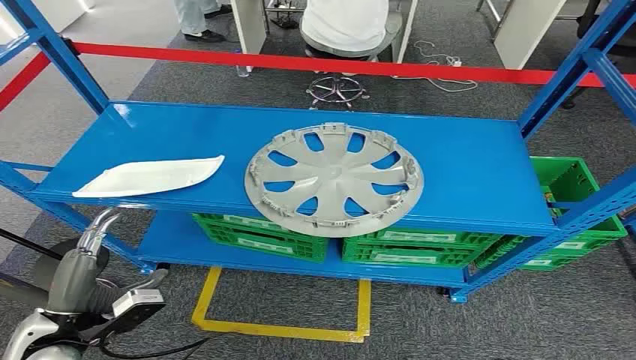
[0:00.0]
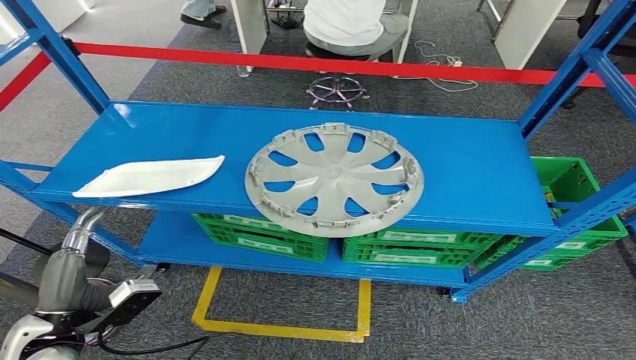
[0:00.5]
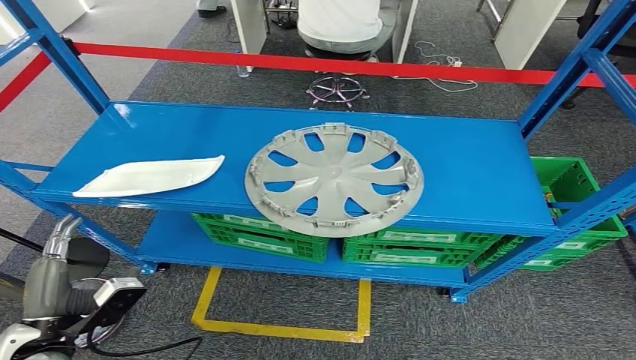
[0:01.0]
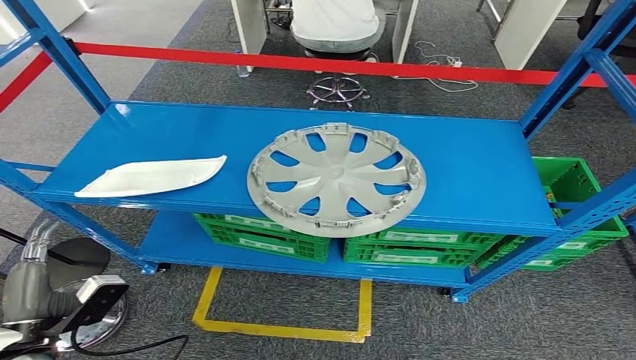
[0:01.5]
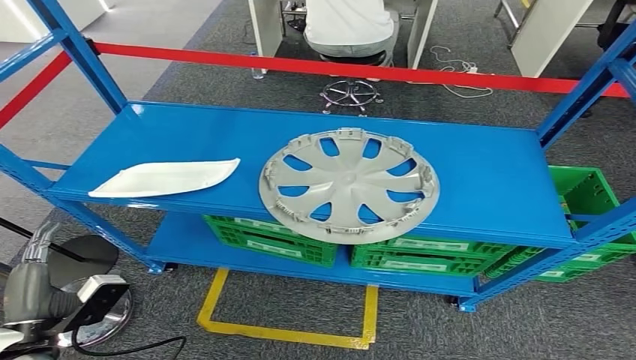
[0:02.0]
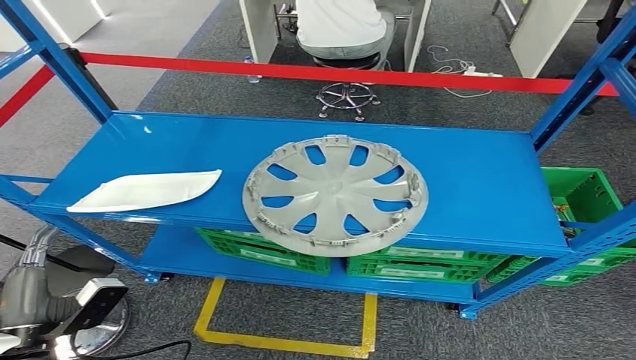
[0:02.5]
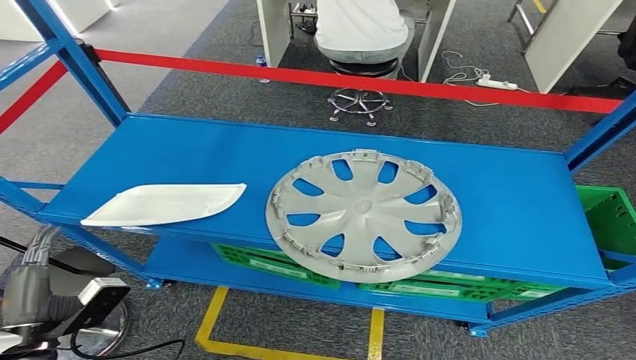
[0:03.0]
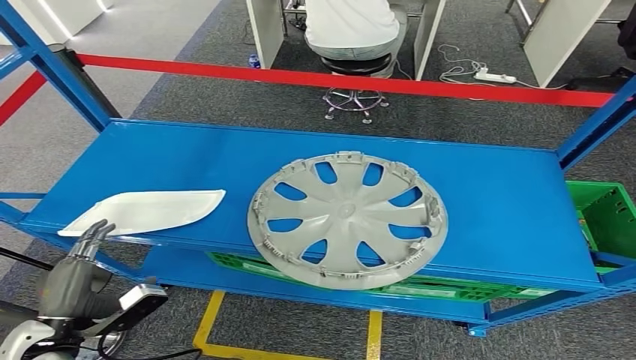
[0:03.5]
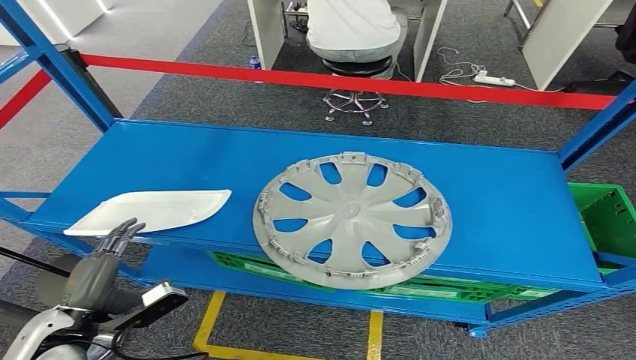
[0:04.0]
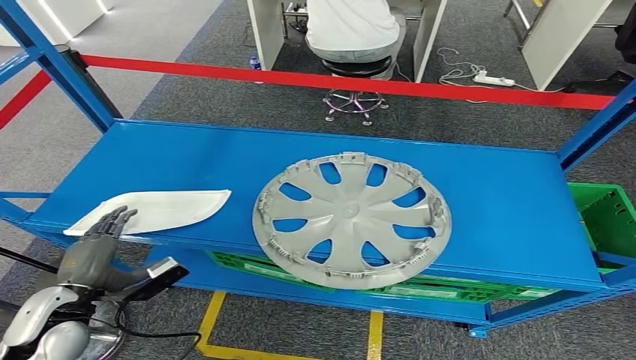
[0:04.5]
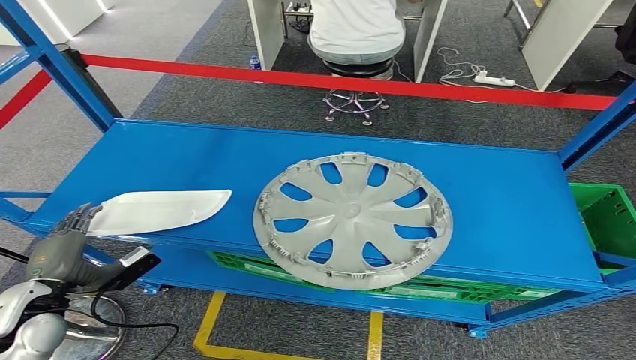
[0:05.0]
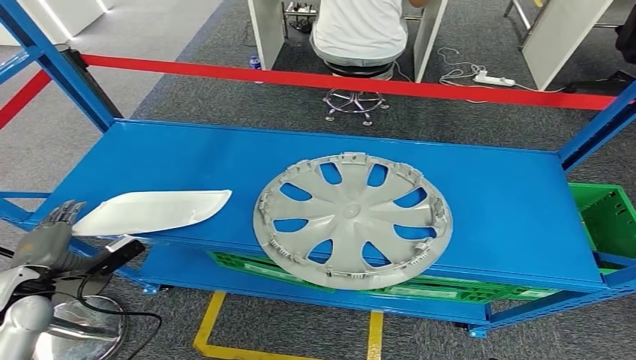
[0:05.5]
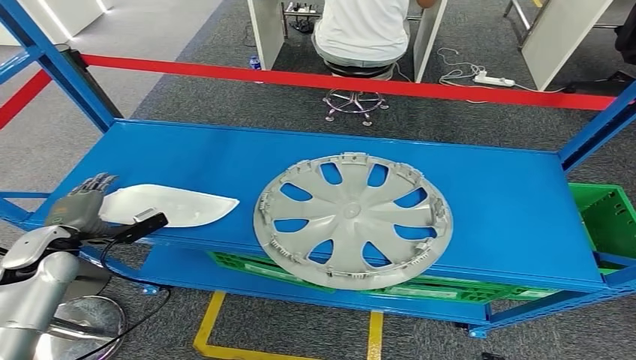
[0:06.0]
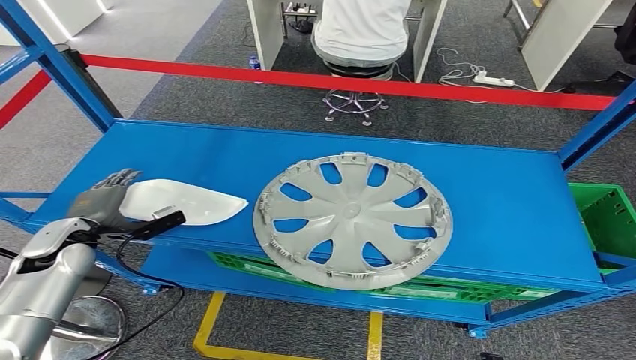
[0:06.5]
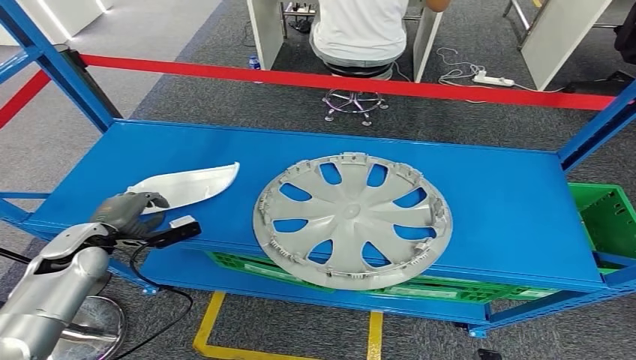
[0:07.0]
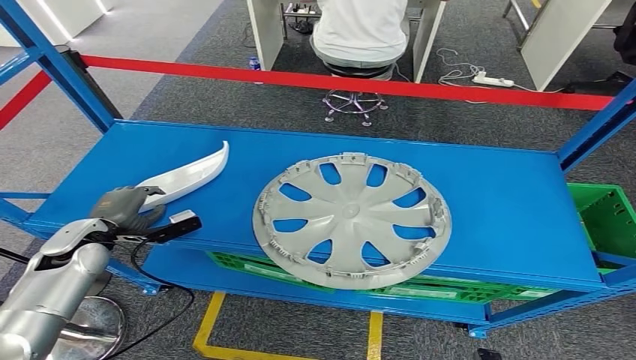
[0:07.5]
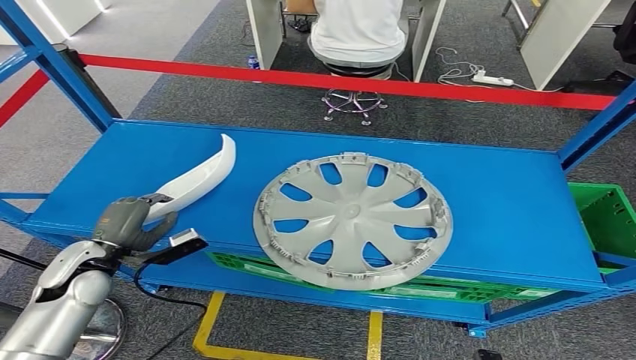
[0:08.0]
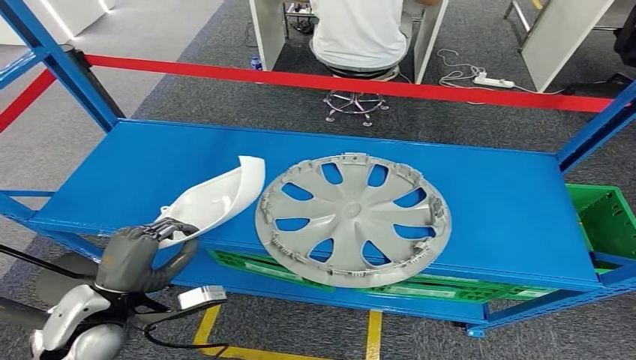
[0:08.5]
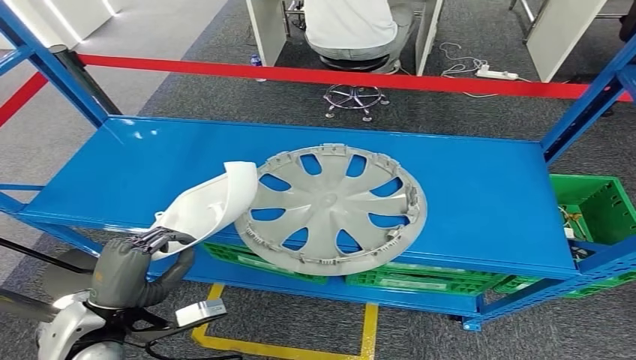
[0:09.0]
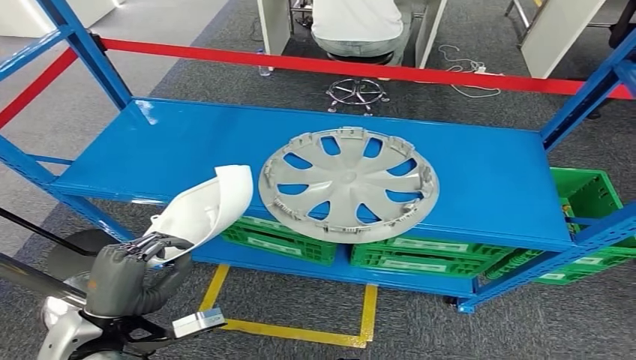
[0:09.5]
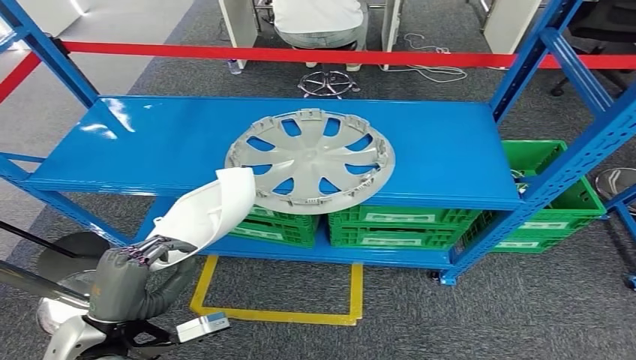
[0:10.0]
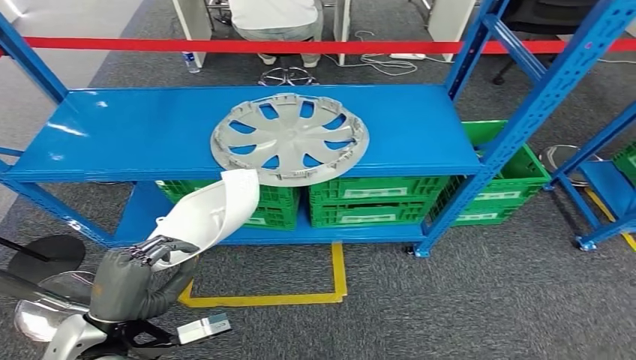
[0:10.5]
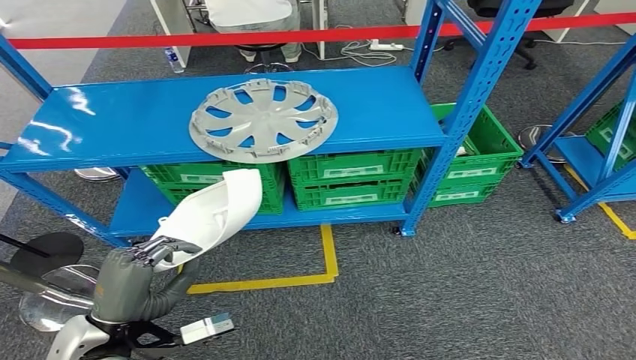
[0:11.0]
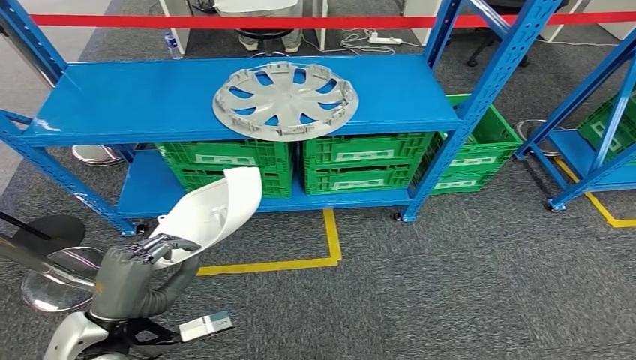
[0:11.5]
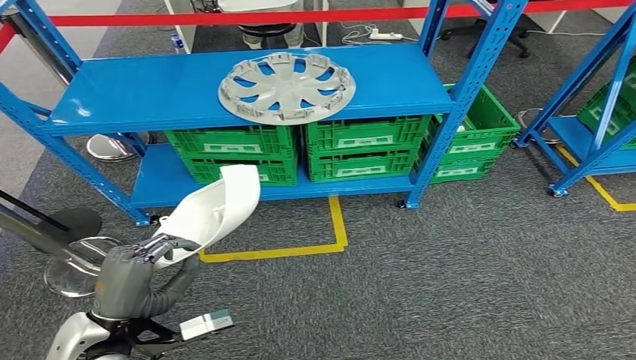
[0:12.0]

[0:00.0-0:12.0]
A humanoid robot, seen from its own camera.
Step, 0:00.0 to 0:11.0: Take small components from the rack.
0:04.0 to 0:06.0: The left hand moves forward and to the left, roughly 15 cm.
0:06.0 to 0:08.0: The left hand shifts some 5 cm to the right.

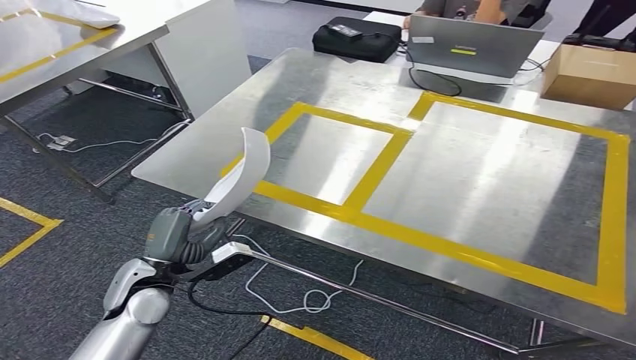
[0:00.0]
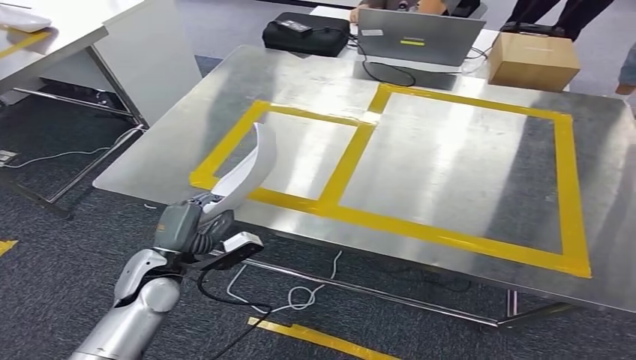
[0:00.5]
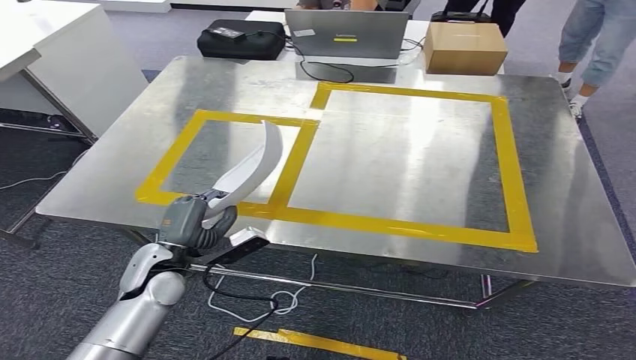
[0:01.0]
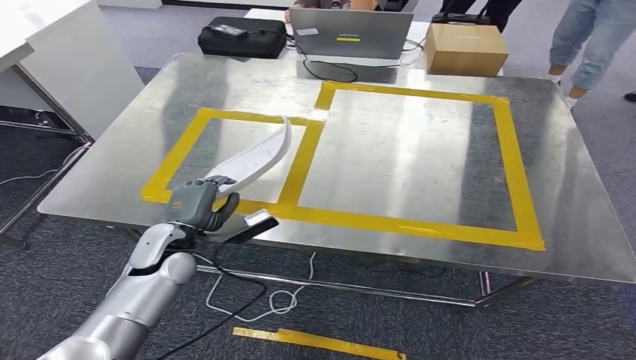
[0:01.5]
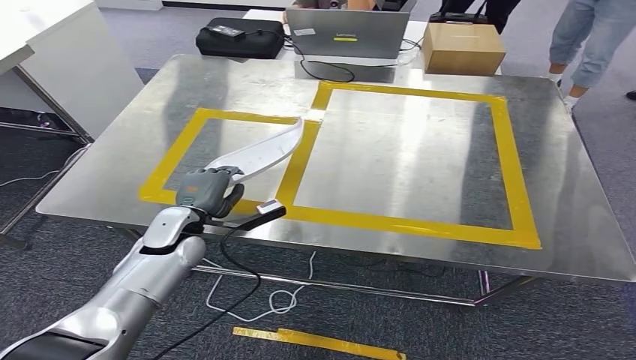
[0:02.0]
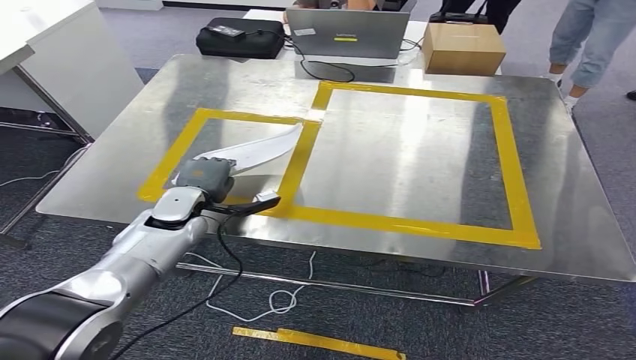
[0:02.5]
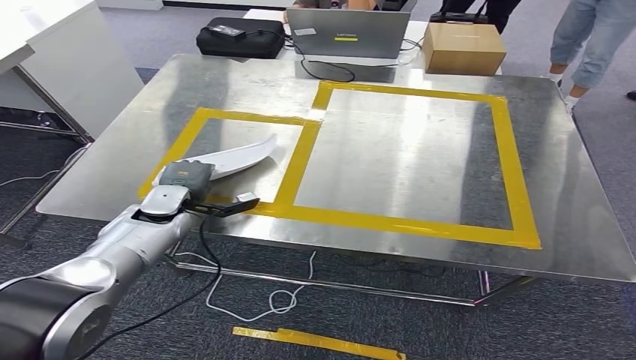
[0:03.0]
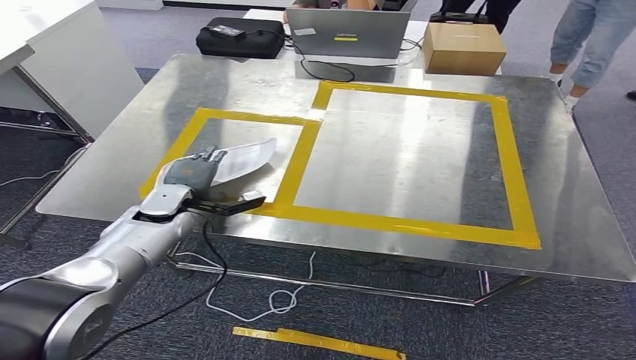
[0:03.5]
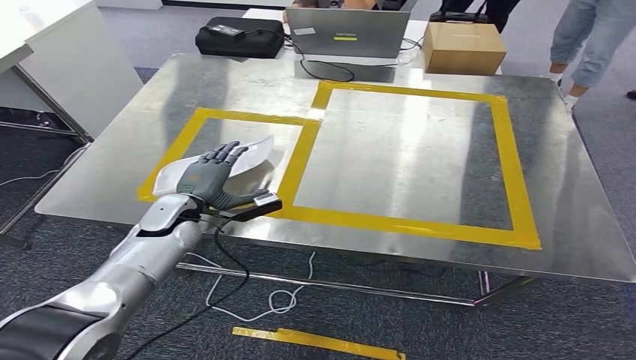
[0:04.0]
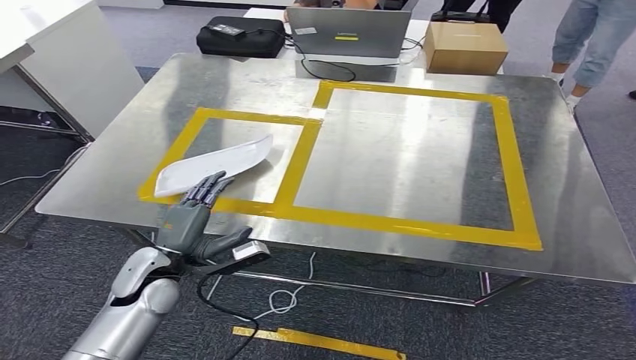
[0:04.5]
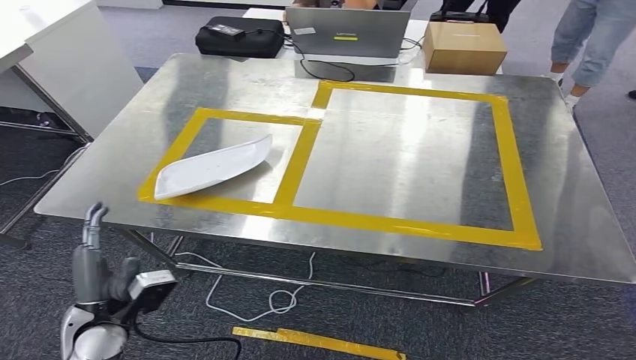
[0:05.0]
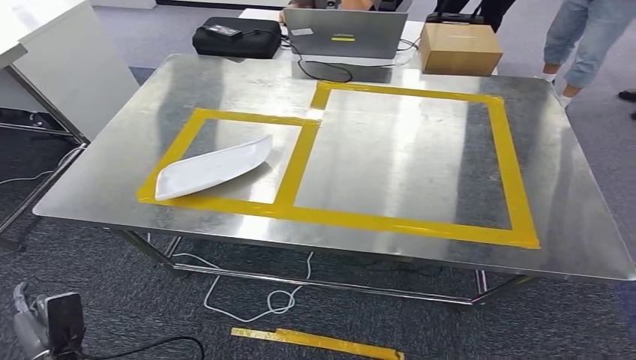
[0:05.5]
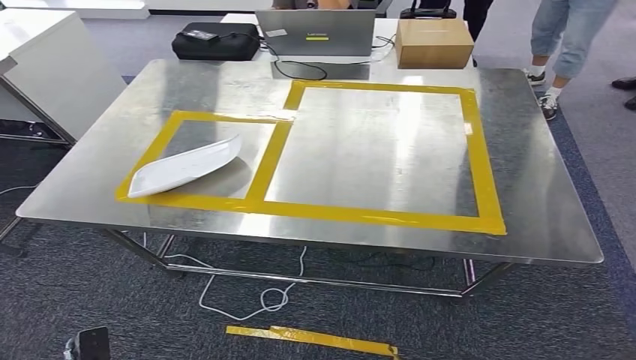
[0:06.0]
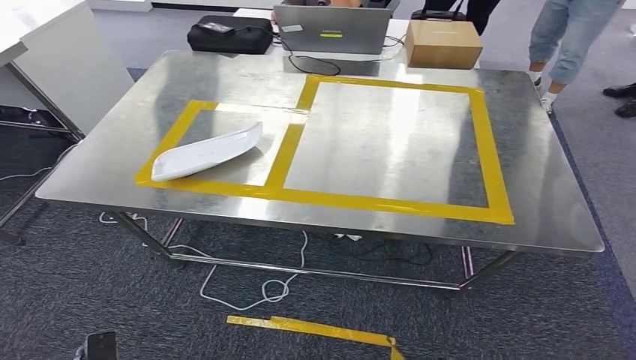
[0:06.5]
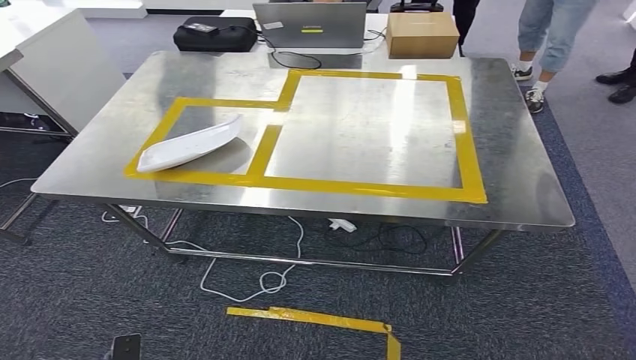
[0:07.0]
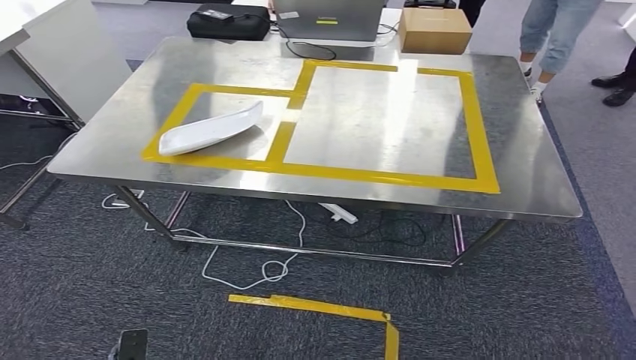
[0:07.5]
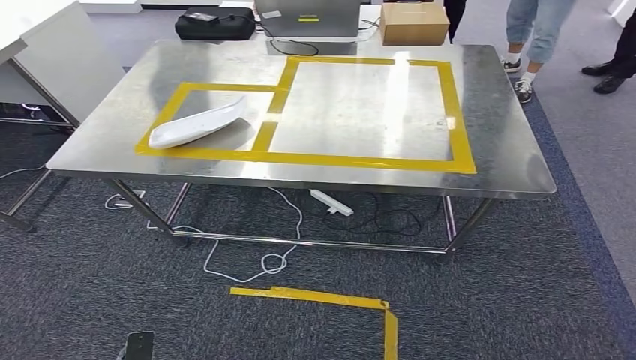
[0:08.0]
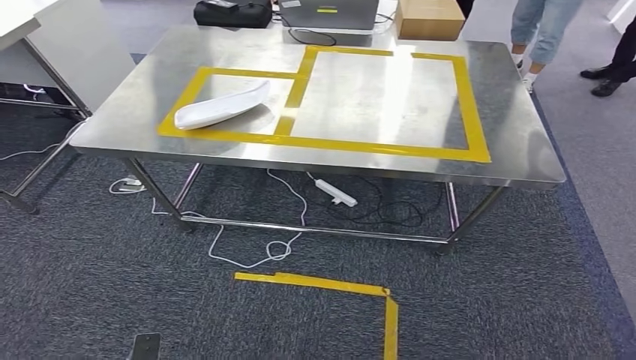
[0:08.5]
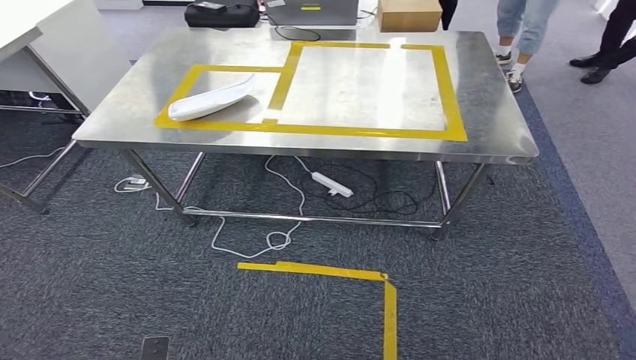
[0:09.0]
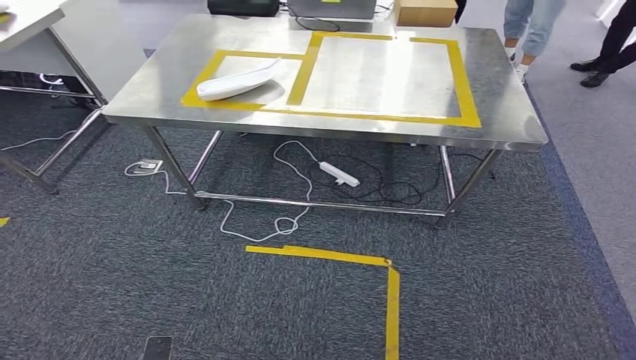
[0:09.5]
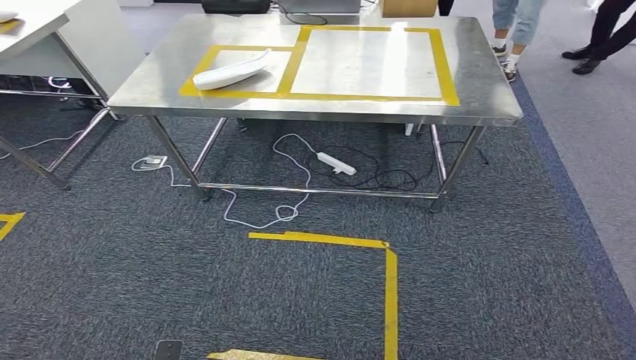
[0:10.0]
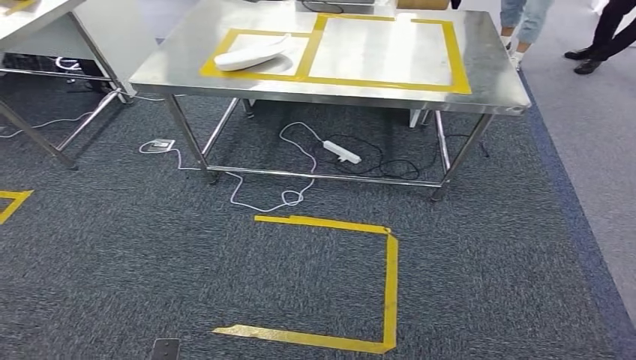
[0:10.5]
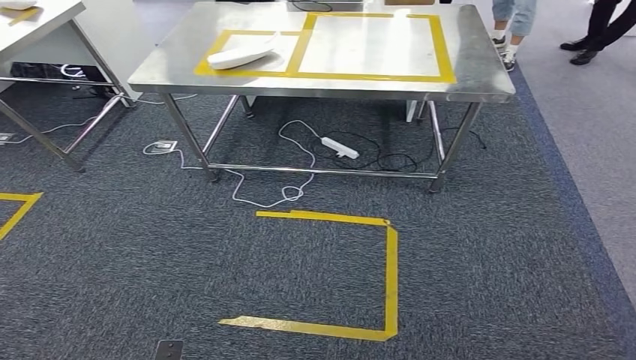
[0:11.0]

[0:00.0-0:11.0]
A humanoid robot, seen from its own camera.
Step, 0:00.0 to 0:08.5: Insert the small parts into the corresponding holes on the workbench.
0:02.0 to 0:03.5: The left hand travels forward by some 5 cm.
0:03.5 to 0:05.5: The left hand is displaced backward and downward by about 35 cm.
